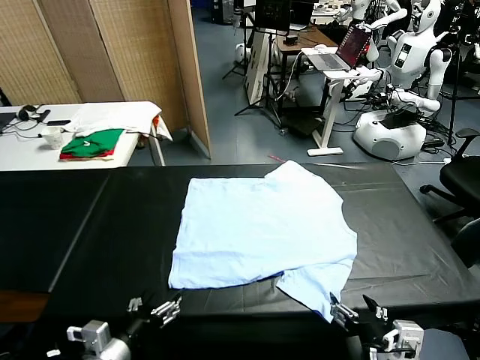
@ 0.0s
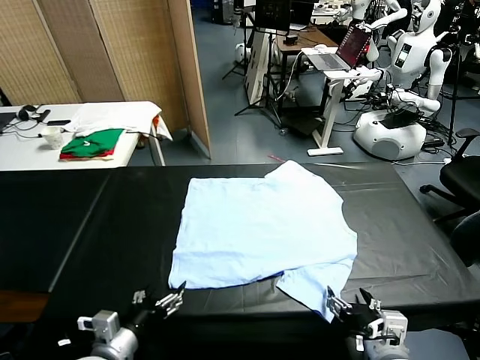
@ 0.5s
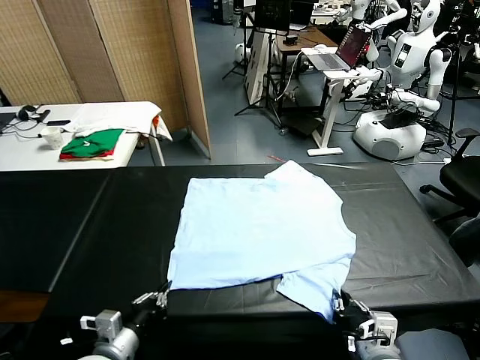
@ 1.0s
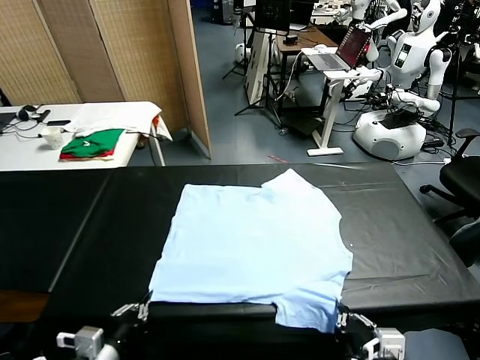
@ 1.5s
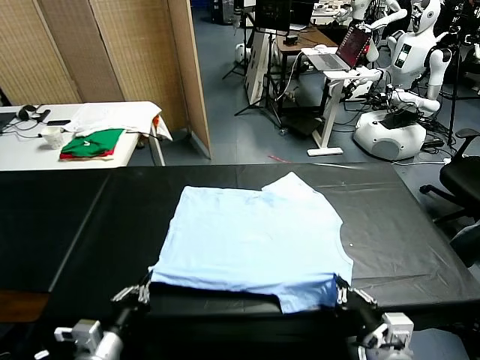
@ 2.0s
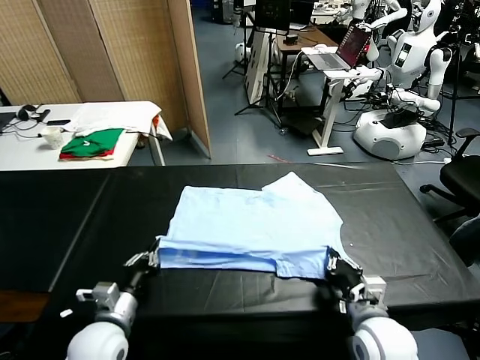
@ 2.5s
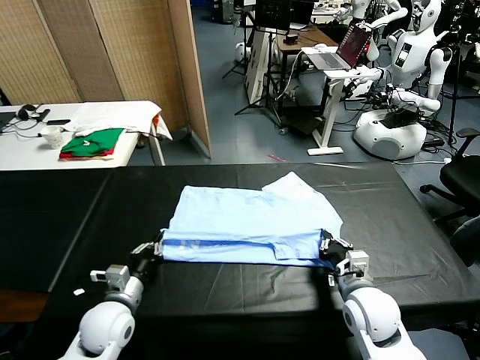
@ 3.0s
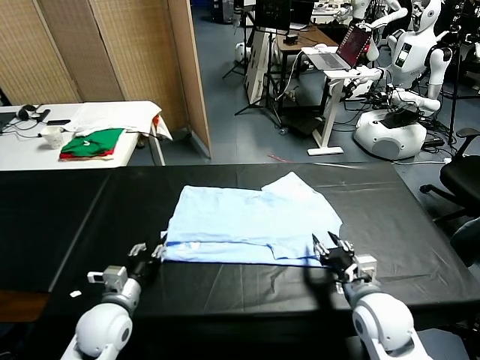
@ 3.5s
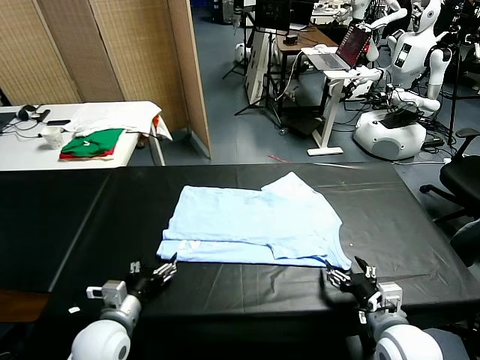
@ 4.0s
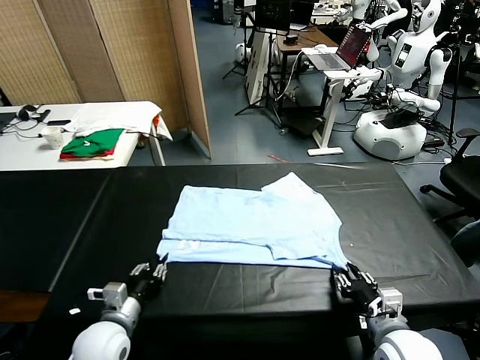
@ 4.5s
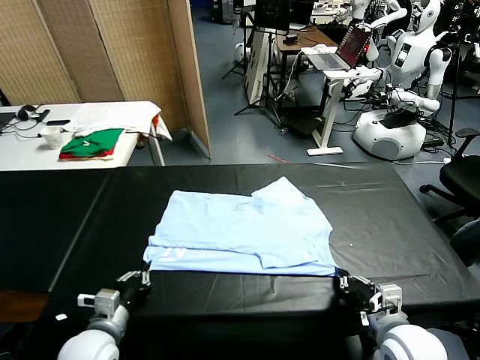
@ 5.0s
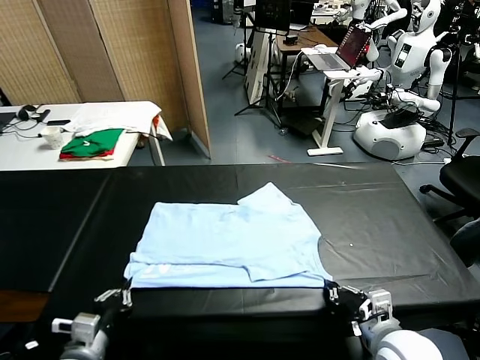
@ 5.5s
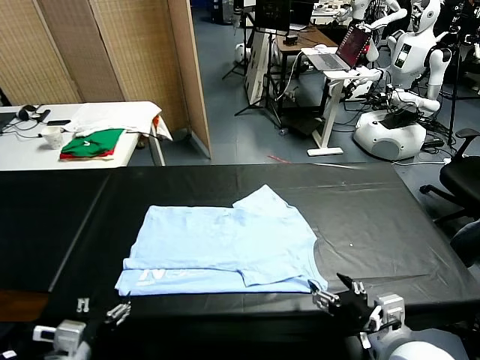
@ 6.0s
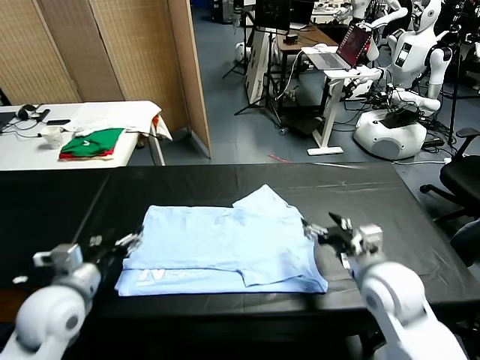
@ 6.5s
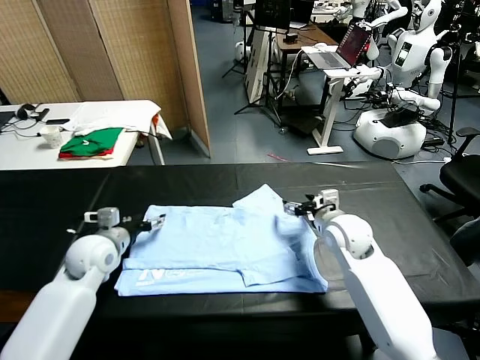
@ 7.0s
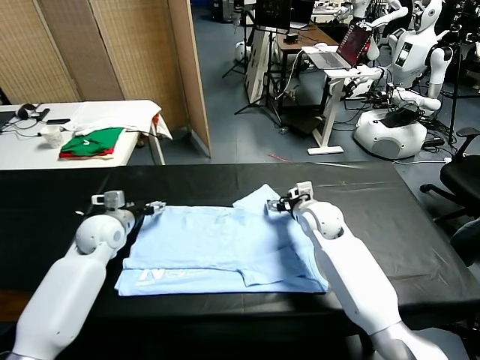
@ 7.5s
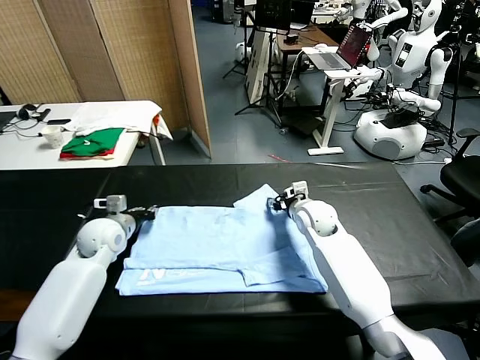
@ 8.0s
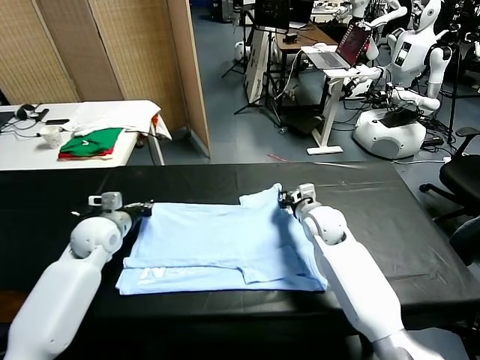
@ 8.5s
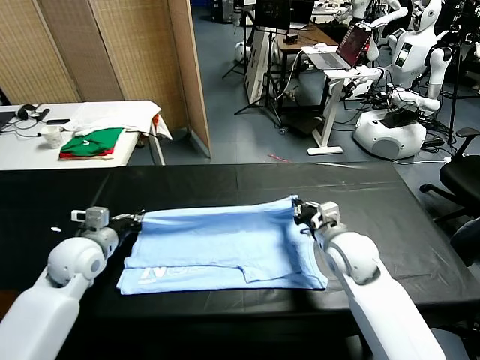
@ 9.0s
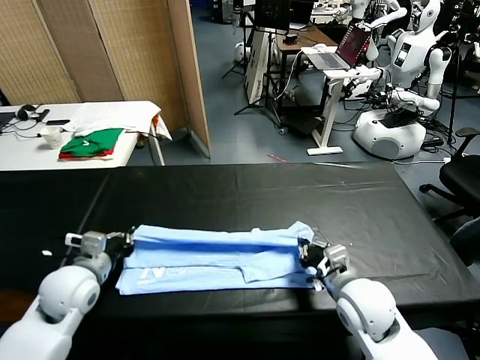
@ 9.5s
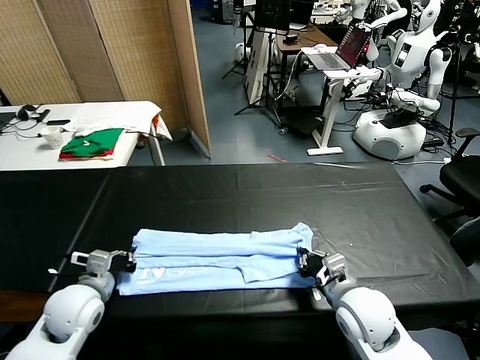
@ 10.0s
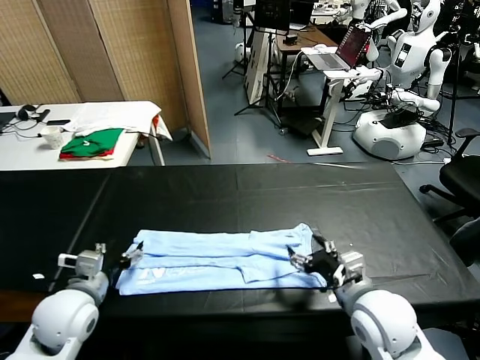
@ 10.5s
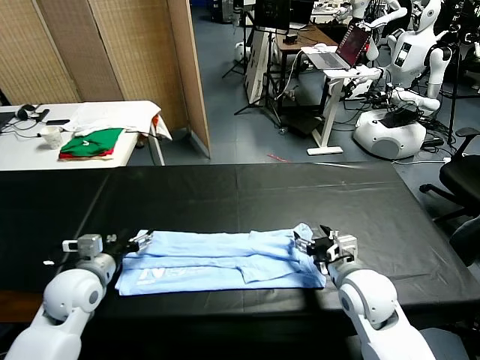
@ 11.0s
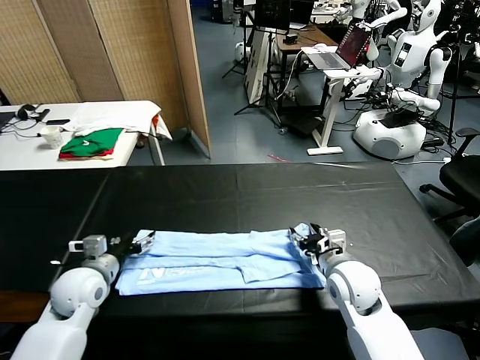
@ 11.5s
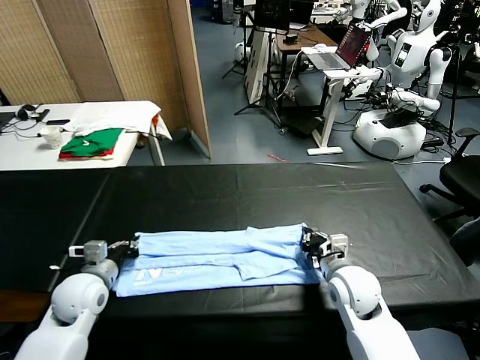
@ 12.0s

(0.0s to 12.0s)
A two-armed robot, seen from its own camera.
Task of the whole recording: fold and organize the clothes.
Step, 0.0s - 1.5s: use both grippers simultaneously to clamp the lower edge of the clothing fabric.
Step, 2.0s - 3.5s: use both grippers to drag the lower edge of the fabric forward and fold it over the upper edge.
Step, 4.0s - 6.0s: Drag the clothes downward with both gripper.
Step, 6.5s - 8.5s: use both grippers simultaneously to clamp the upper edge of the clothing fabric.
Step, 9.0s - 10.5s: use both grippers to drag the upper edge of the fabric backward and fold it over the lower edge.
2.0s - 4.0s: The left gripper goes approximately 5 cm forward, and opens. The right gripper travels forward and back again, some 10 cm each way, and opens up.
4.0s - 6.0s: The right gripper moves upward, about 10 cm, and closes and opens again; the left gripper travels backward and upward by some 10 cm, and closes, then reopens.
6.0s - 8.0s: The grippers both shift forward by some 30 cm. The right gripper closes up, while the left gripper closes up.
8.0s - 10.0s: The grippers both shift backward by approximately 20 cm.
10.0s - 12.0s: The right gripper heads forward, covering roughly 5 cm, and opens and closes again. Meanwhile the left gripper opens, then closes again.

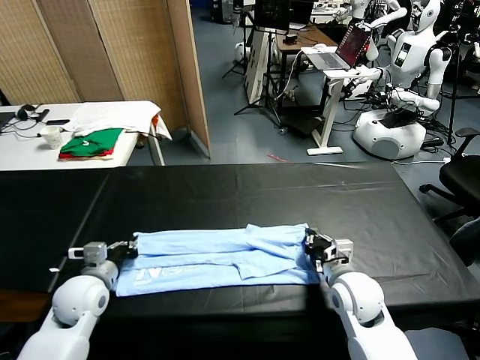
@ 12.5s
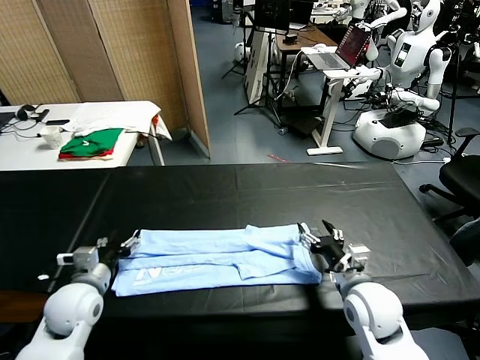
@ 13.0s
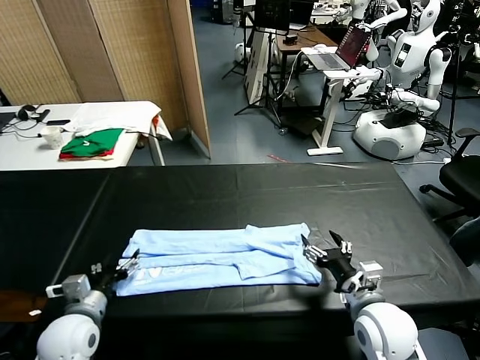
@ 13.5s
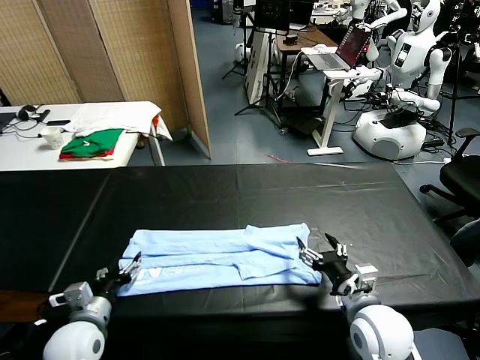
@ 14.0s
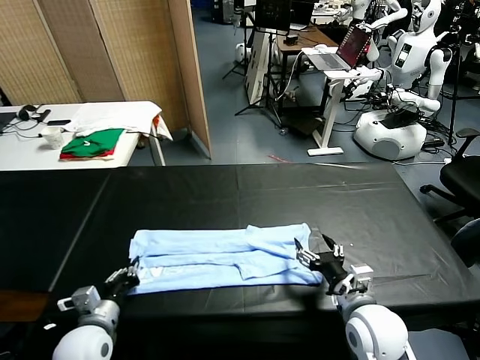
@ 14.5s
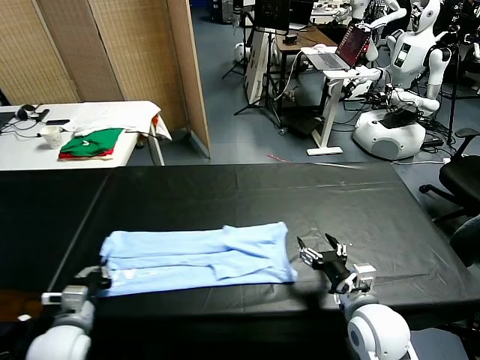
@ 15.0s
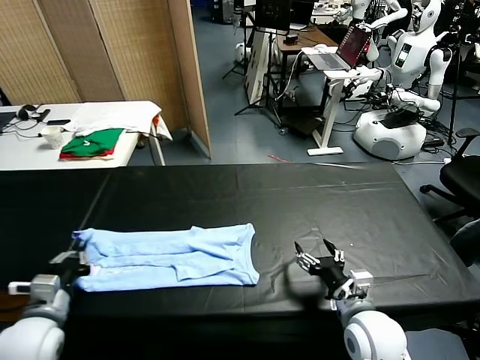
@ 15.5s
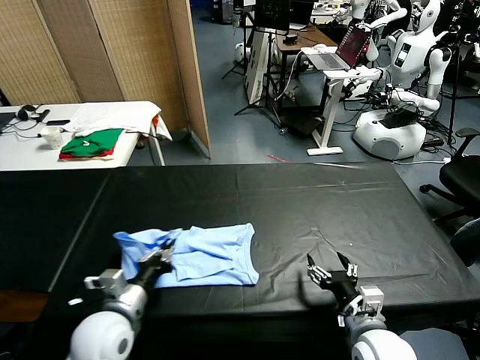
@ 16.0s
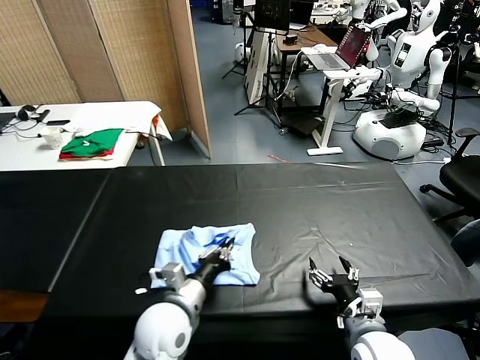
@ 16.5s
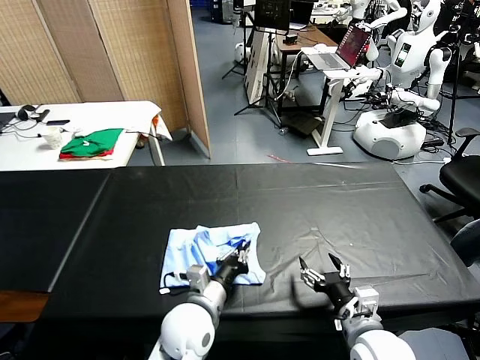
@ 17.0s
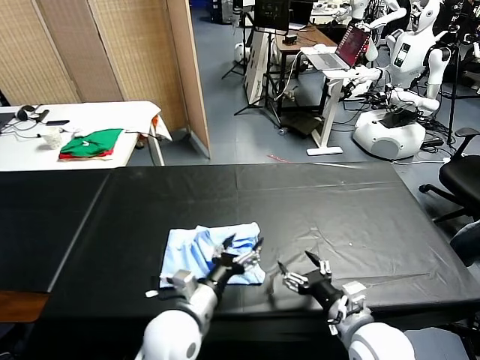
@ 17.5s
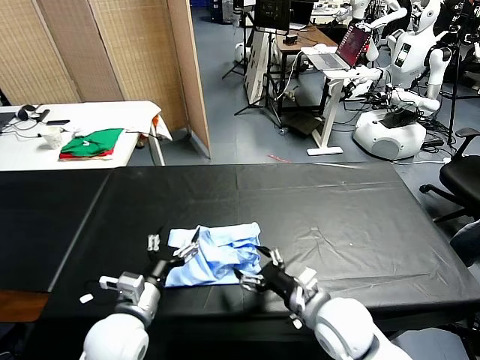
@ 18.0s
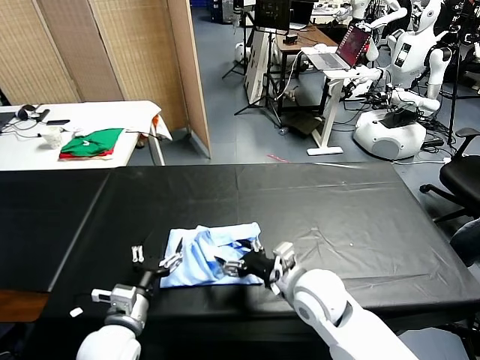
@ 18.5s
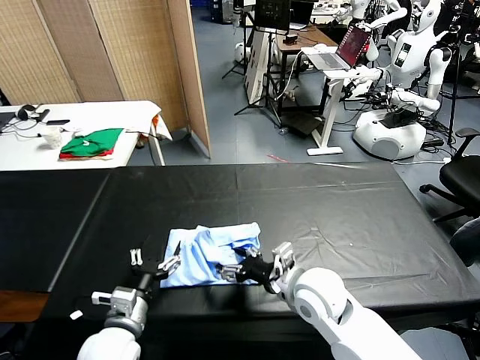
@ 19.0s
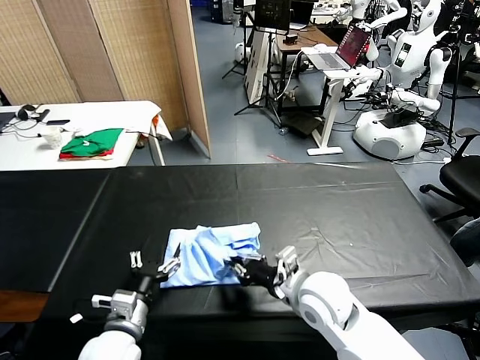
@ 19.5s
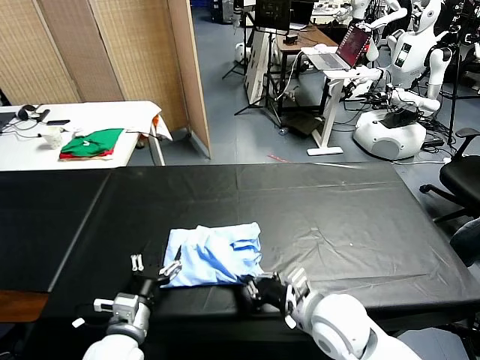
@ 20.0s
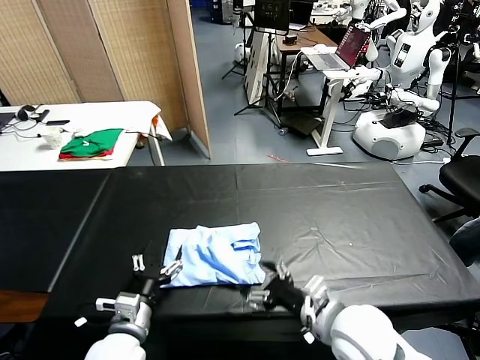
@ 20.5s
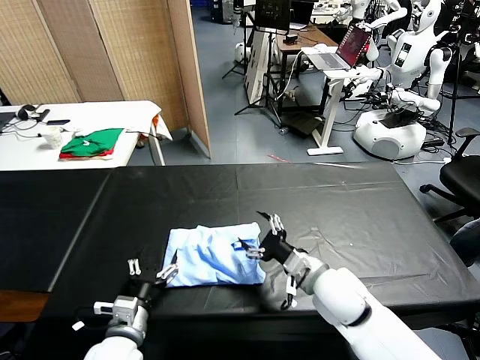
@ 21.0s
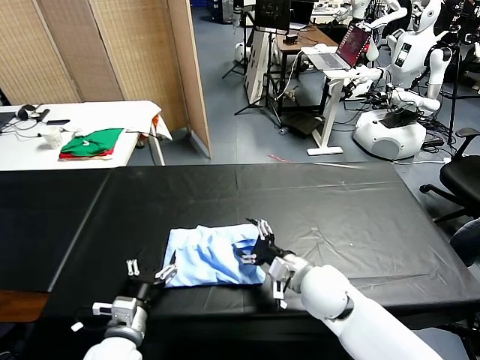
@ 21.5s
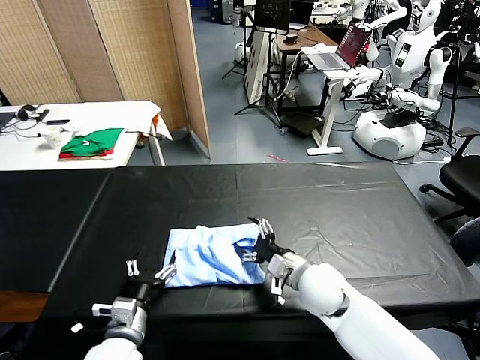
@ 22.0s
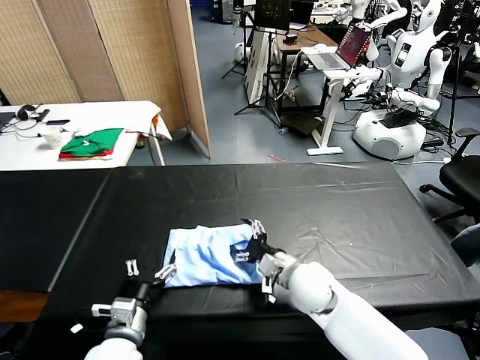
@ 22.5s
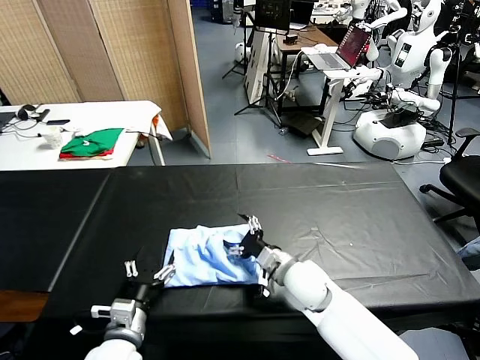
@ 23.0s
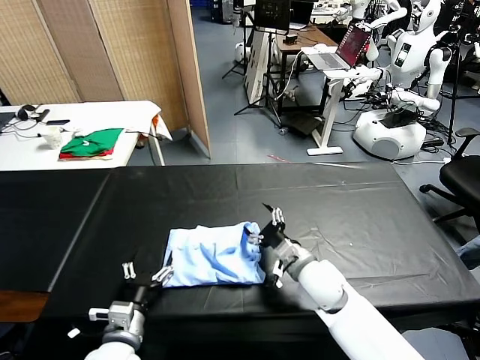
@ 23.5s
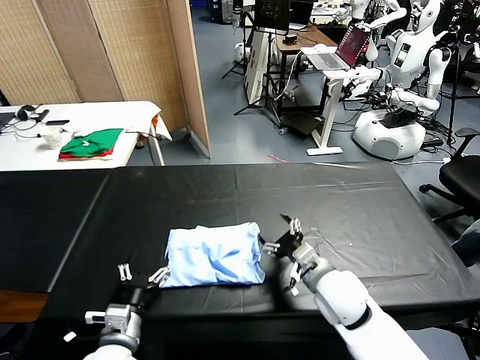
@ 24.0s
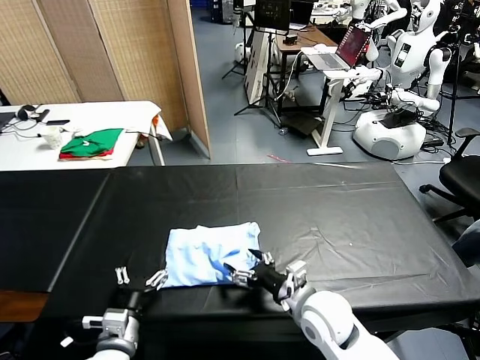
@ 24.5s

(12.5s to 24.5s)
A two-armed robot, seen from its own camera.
Task of the whole recording: fold and organize the clothes.
Step, 12.5s - 15.0s: use the left gripper to clamp the left edge of the fabric.
Step, 15.5s - 17.5s: use the left gripper to drag the left edge of the fabric to the left and folds it over the right edge.
12.5s - 14.5s: The two grippers go some 10 cm backward. The left gripper opens and closes again. The right gripper opens.
14.5s - 16.5s: The left gripper travels to the right by approximately 15 cm.
16.5s - 18.5s: The right gripper heads forward and to the left, covering about 15 cm; the left gripper heads to the left, covering about 10 cm, and opens up.
18.5s - 20.5s: The right gripper shifts approximately 10 cm backward, and closes, then opens again.
20.5s - 22.5s: The right gripper moves forward and downward, some 15 cm.
22.5s - 24.5s: The right gripper goes about 5 cm backward.

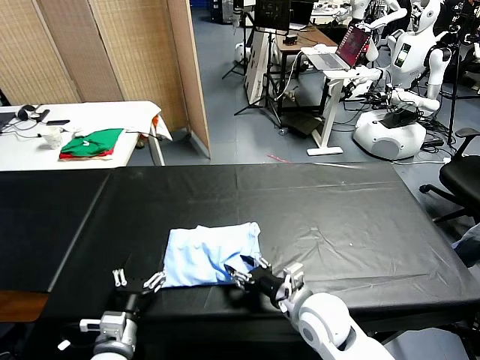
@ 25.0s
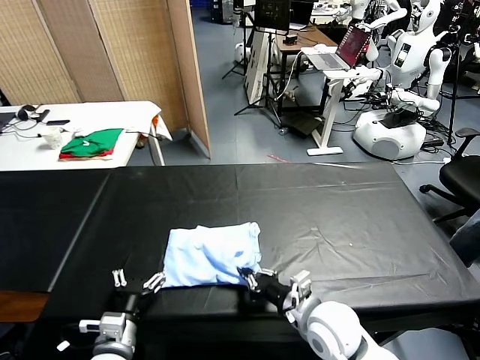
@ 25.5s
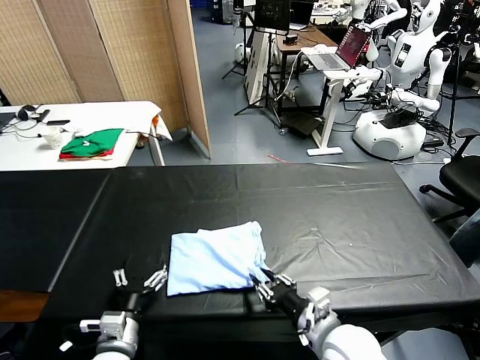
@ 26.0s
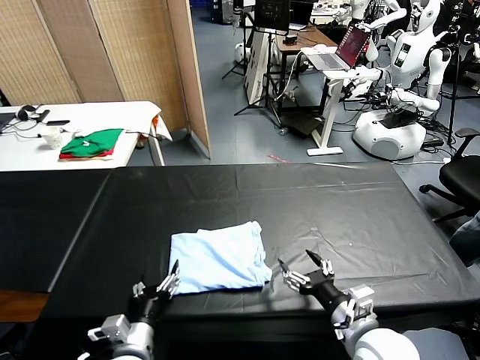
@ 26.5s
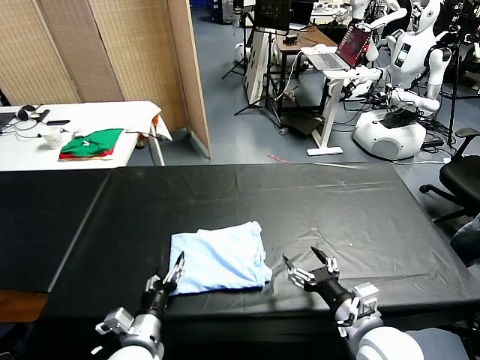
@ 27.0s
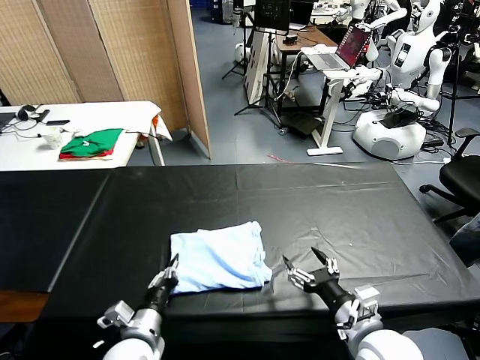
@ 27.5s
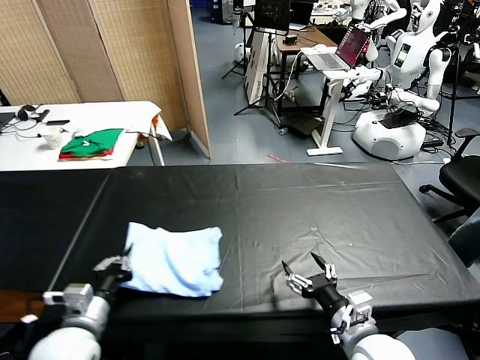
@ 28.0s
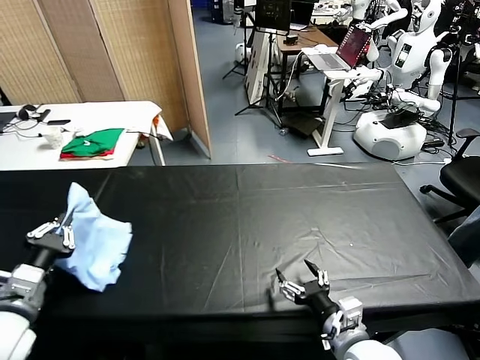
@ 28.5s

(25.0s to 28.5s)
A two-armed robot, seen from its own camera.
Task of the whole recording: fold and organize the clothes.
25.0s - 27.0s: The right gripper goes roughly 10 cm to the right and backward, and closes, then reopens.
27.0s - 28.5s: The left gripper goes roughly 25 cm upward and to the left, and closes.
